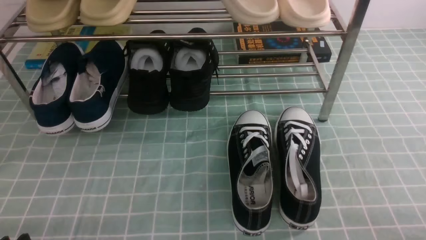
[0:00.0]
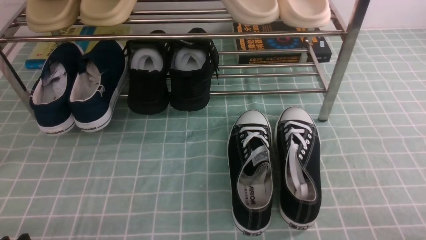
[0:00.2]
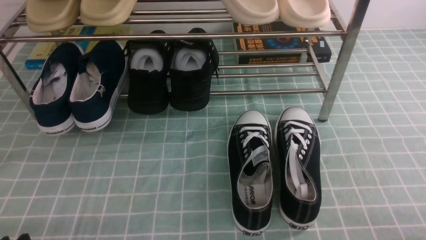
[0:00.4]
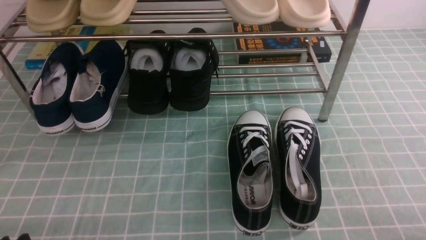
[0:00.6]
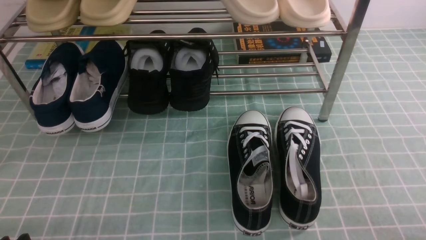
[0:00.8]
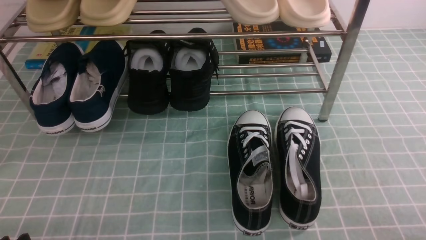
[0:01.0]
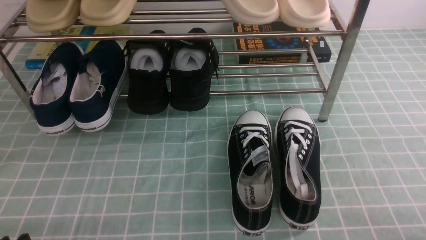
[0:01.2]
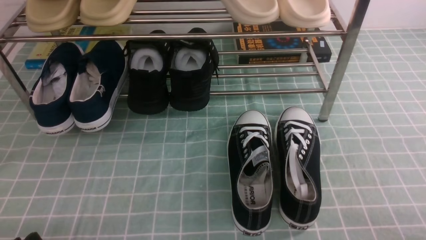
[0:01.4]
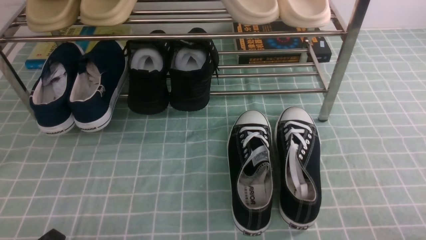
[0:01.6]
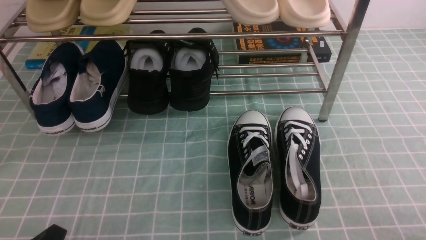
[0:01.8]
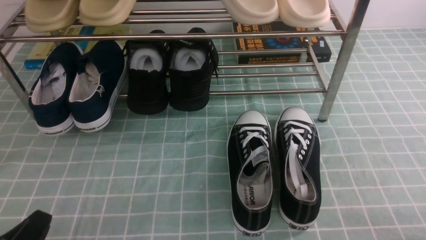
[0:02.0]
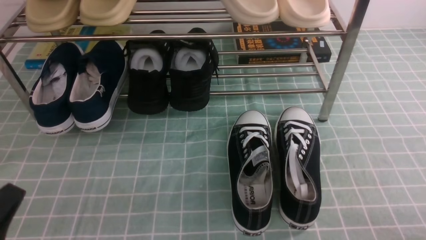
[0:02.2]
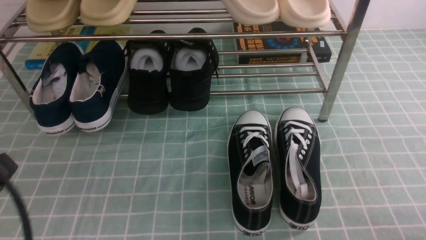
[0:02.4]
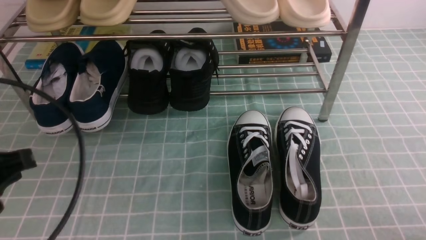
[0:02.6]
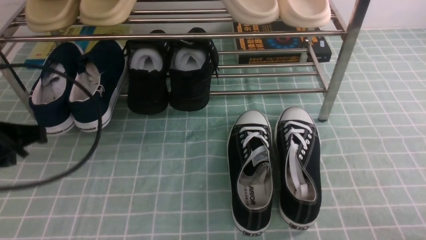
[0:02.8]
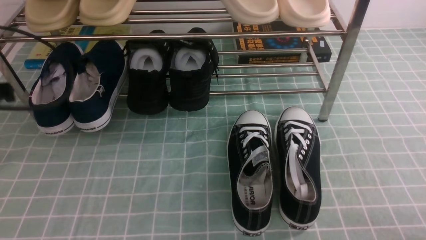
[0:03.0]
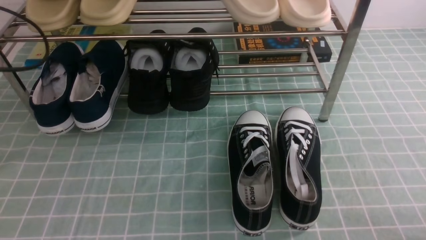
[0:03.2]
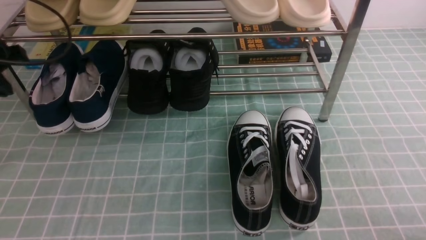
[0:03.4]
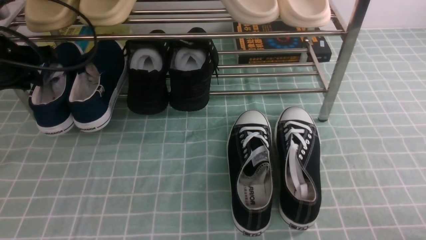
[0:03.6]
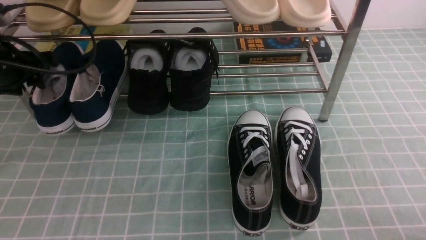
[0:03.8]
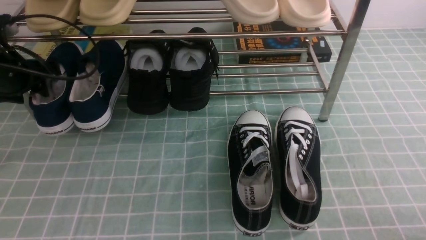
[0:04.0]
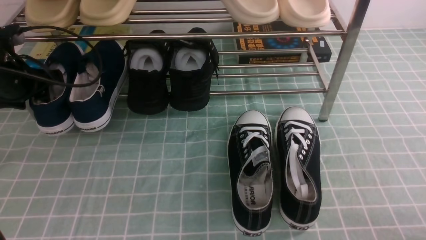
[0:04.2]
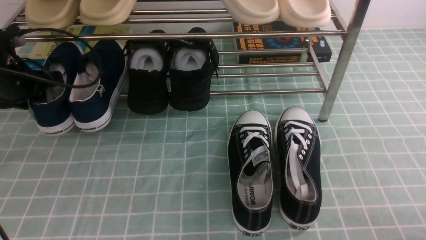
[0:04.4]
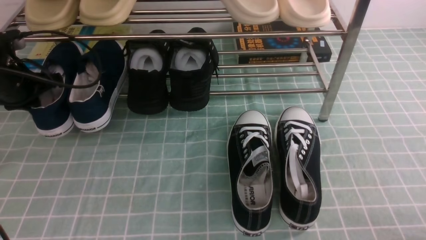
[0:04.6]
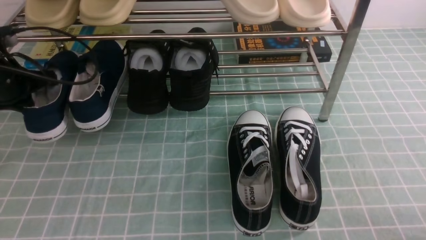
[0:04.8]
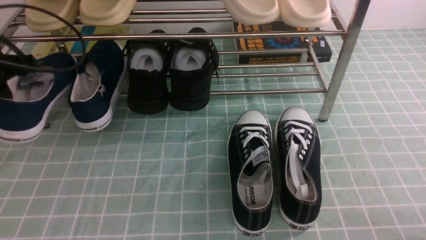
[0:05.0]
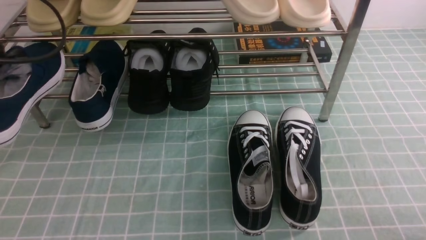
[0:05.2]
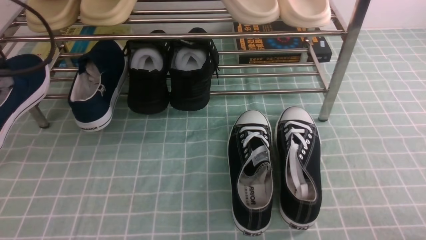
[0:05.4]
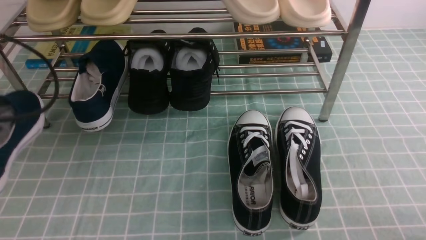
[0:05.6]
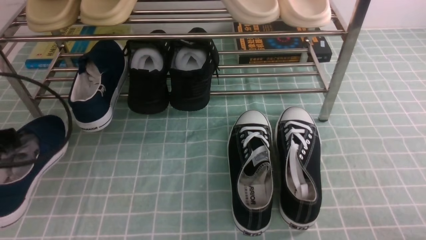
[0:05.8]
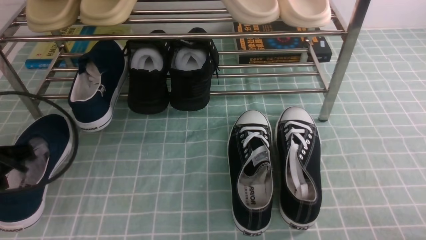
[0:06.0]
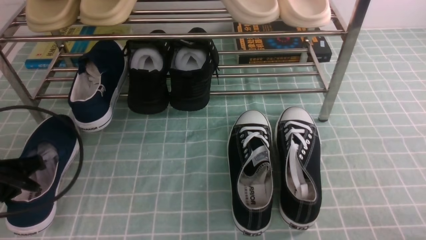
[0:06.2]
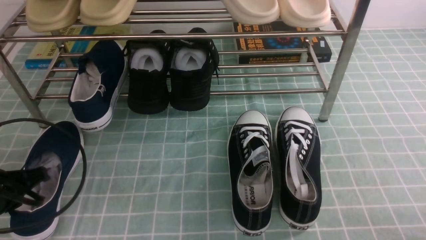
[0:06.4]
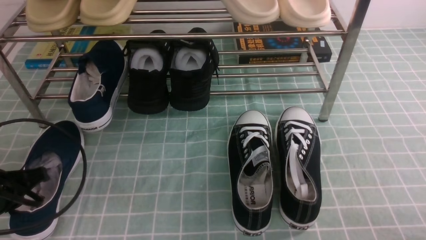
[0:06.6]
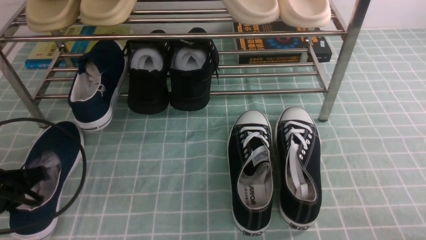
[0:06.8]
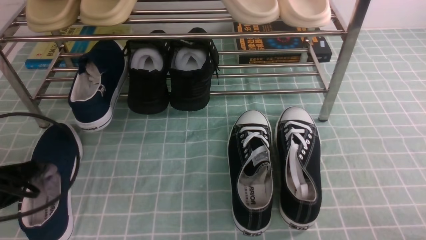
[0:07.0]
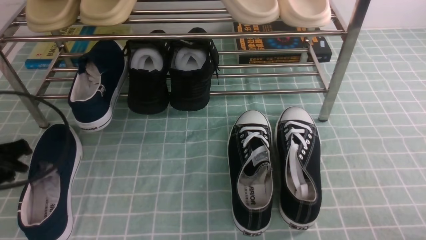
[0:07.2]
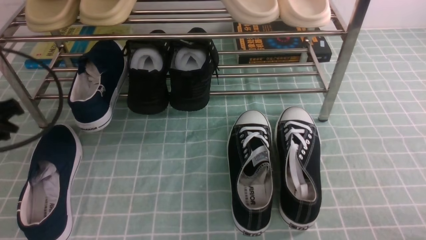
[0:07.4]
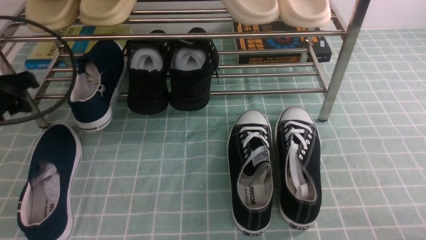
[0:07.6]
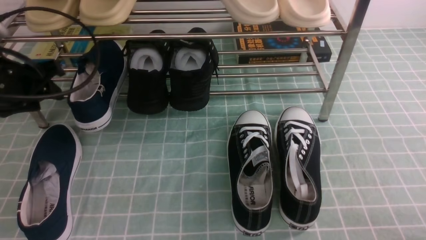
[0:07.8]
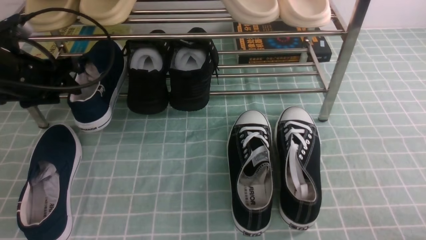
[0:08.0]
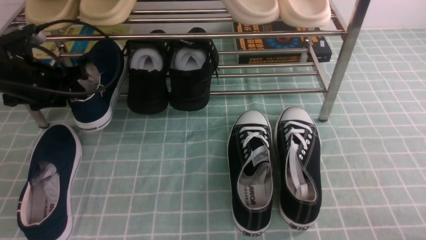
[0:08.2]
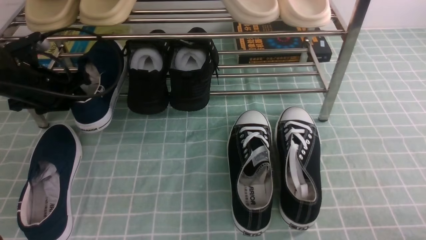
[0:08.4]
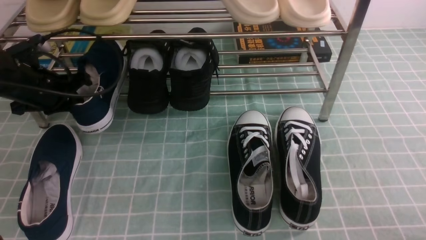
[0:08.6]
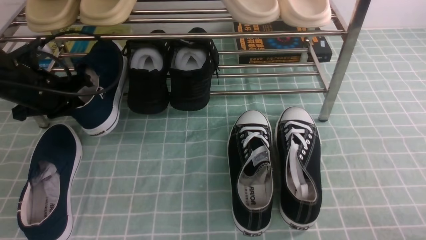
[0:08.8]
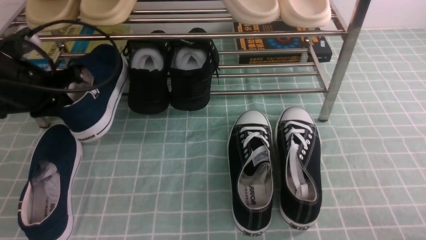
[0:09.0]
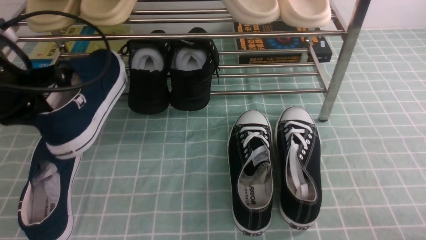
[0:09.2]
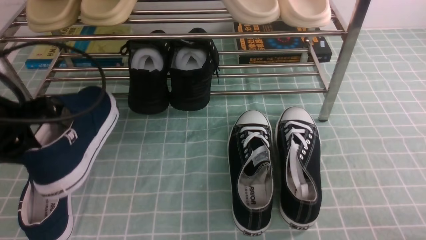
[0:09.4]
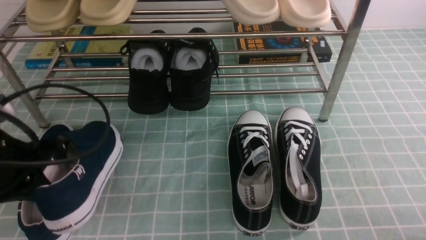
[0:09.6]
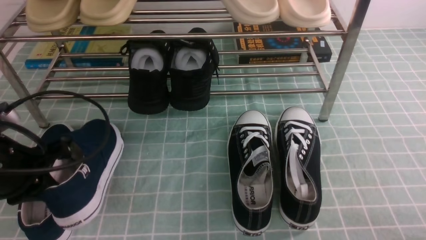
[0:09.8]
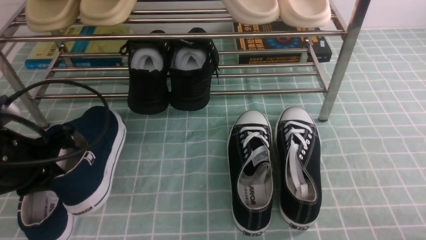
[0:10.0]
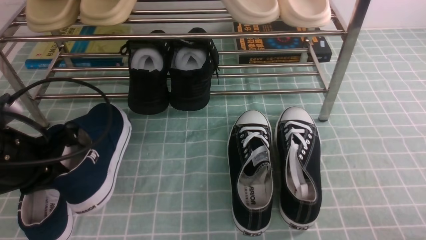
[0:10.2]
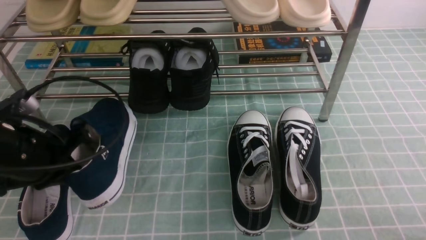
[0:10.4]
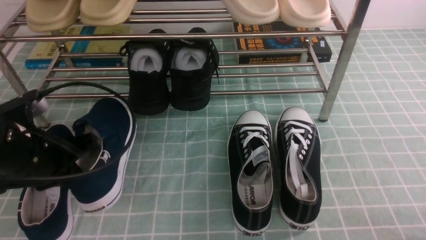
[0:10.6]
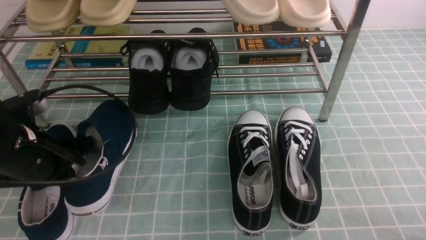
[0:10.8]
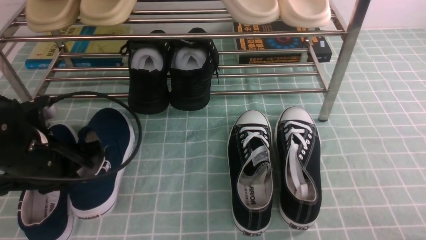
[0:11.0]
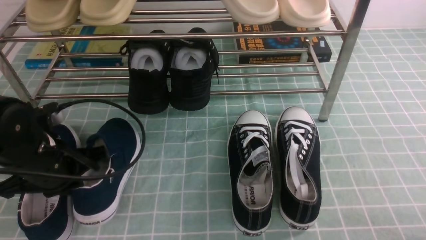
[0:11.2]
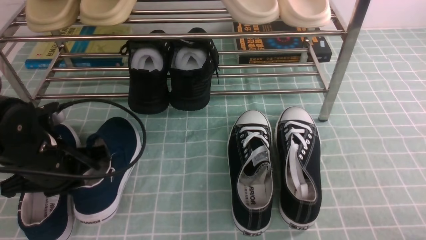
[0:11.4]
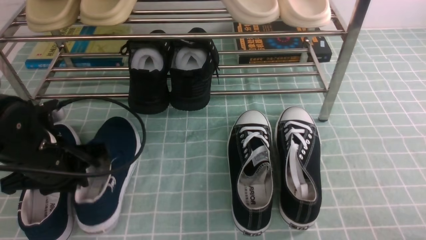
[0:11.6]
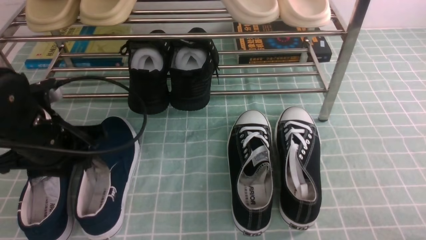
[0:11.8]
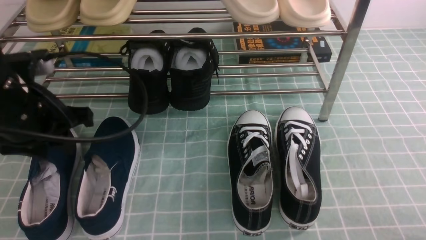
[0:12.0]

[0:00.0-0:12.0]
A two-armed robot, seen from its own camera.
Step, 0:00.0 to 0:04.6: use the left arm to clamp a shoe on the left side of the shoe rack.
Step, 0:04.8 to 0:07.2: Use your left arm to remove the clamped shoe from the shoe rack and put it down.
Step, 0:07.4 to 0:08.6: use the left arm to clamp a shoe on the left side of the shoe rack.
Step, 0:08.8 to 0:12.0: Use your left arm to remove the clamped shoe from the shoe rack and put it down.
0:01.6 to 0:03.0: The left gripper shifts roughly 25 cm forward and upward, and closes its fingers.
0:03.0 to 0:04.4: The left gripper heads forward and downward, covering roughly 15 cm, and opens.
0:04.4 to 0:06.0: The left gripper moves backward, roughly 15 cm, and closes up.
0:06.0 to 0:07.6: The left gripper travels forward and upward by about 10 cm, and opens up.
0:07.6 to 0:09.0: The left gripper closes up.
0:09.0 to 0:10.4: The left gripper heads backward, covering about 10 cm.
0:10.4 to 0:12.0: The left gripper heads upward, covering about 5 cm, and opens its fingers.

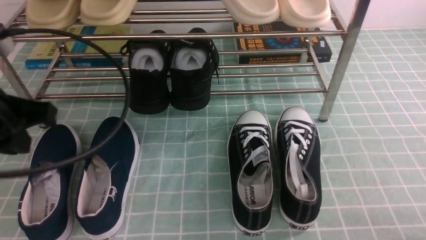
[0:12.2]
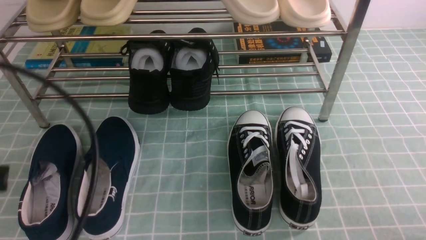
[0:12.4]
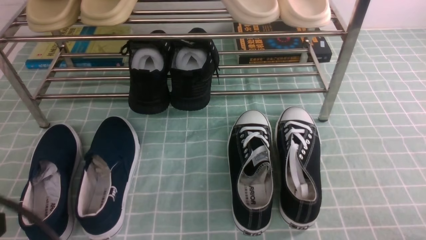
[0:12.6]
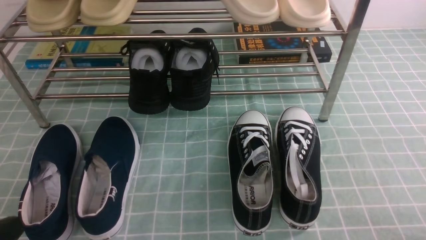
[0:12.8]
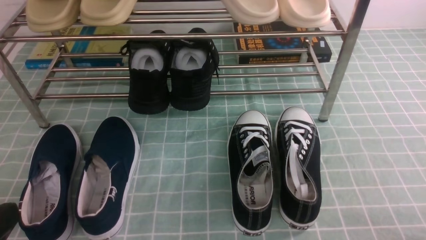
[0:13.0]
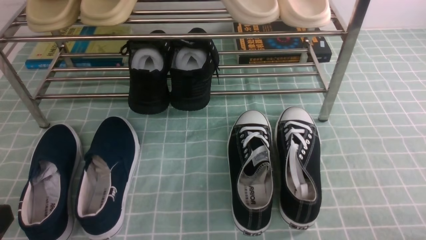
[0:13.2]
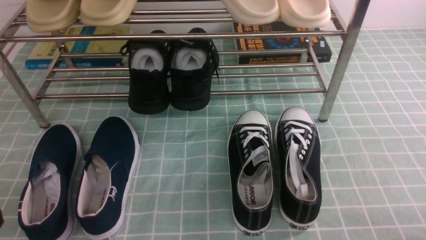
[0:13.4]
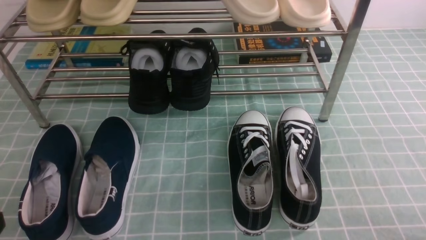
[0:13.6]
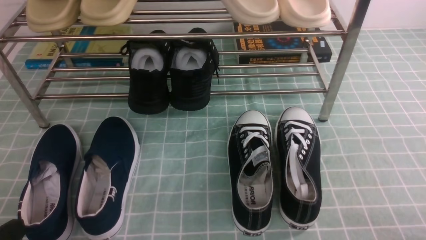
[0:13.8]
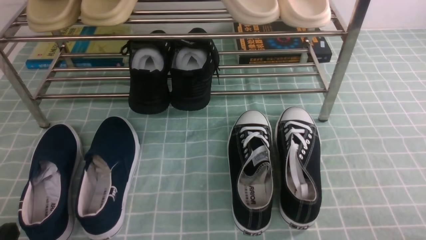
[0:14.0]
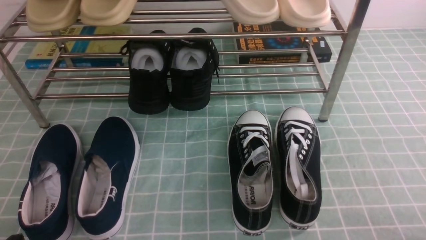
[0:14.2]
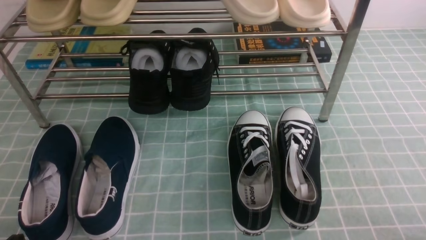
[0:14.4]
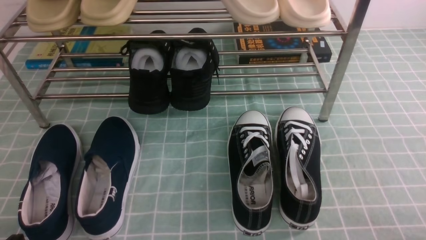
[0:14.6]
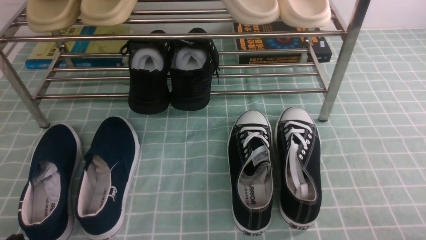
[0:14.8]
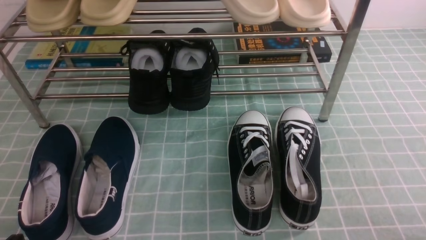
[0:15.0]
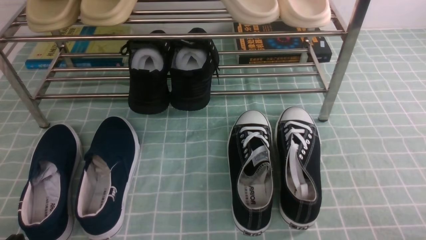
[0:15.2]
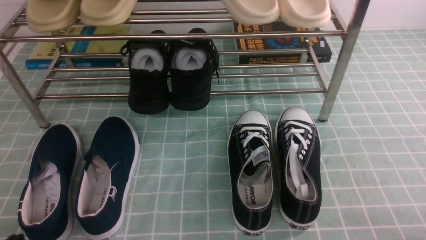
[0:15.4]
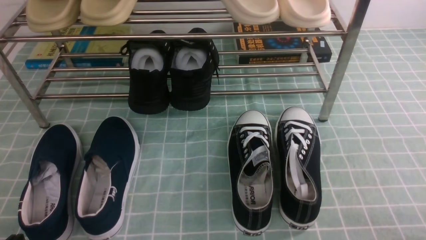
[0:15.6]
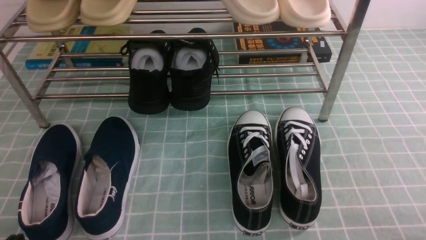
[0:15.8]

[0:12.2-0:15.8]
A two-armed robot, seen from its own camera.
0:12.2 to 0:14.0: The left gripper moves downward and backward, about 20 cm.
